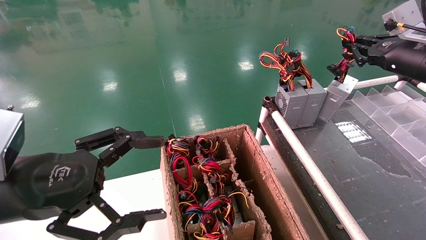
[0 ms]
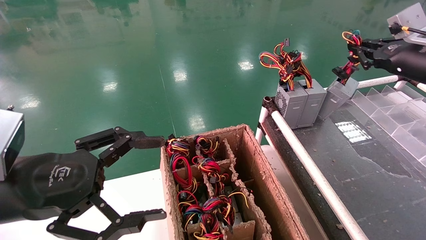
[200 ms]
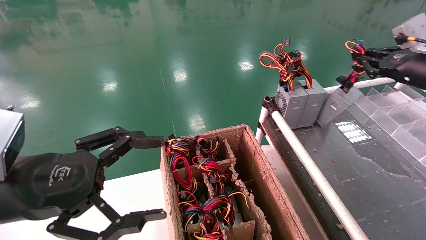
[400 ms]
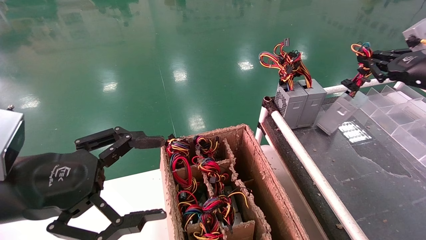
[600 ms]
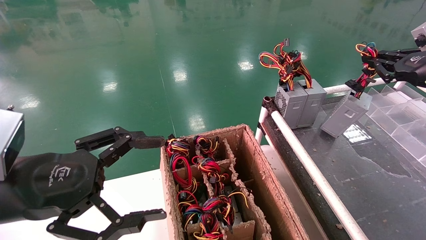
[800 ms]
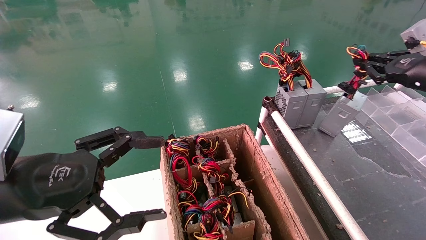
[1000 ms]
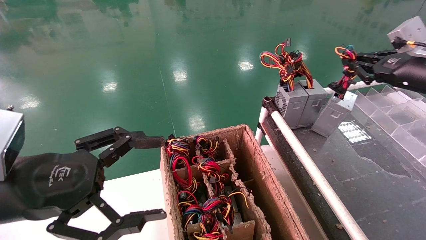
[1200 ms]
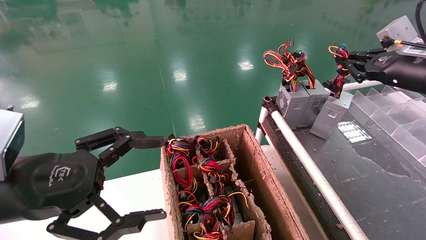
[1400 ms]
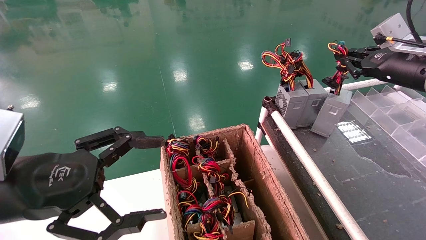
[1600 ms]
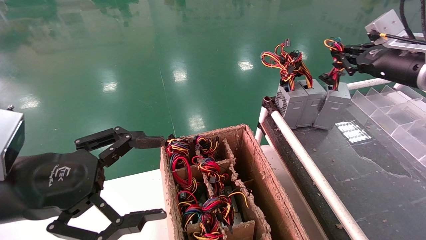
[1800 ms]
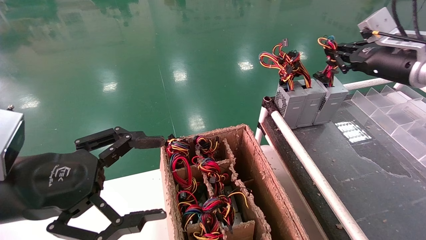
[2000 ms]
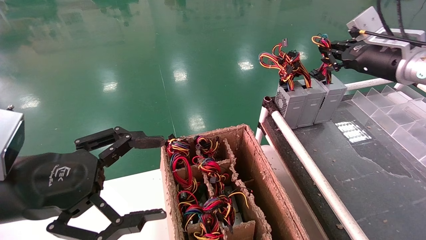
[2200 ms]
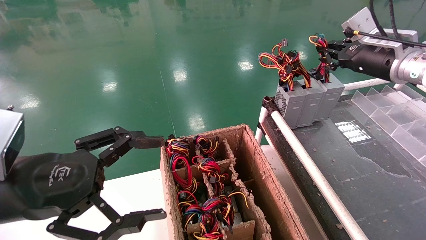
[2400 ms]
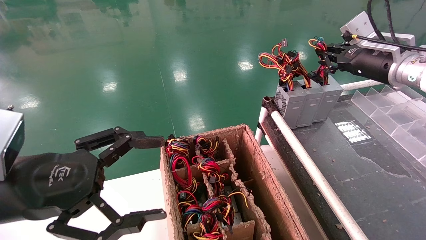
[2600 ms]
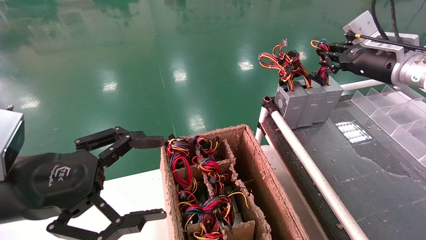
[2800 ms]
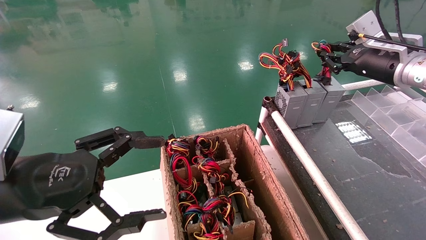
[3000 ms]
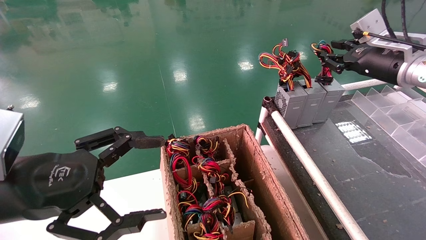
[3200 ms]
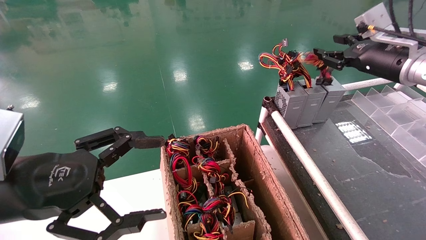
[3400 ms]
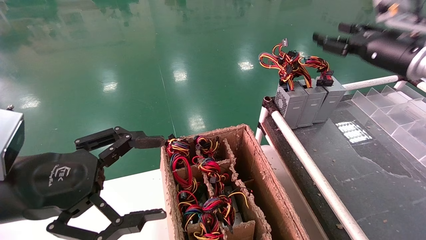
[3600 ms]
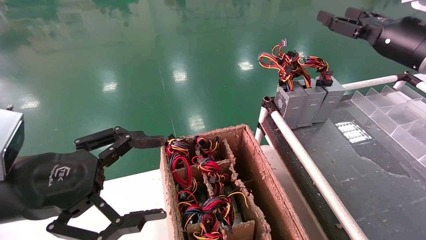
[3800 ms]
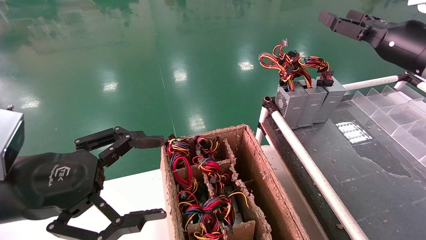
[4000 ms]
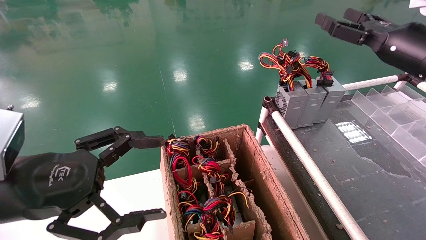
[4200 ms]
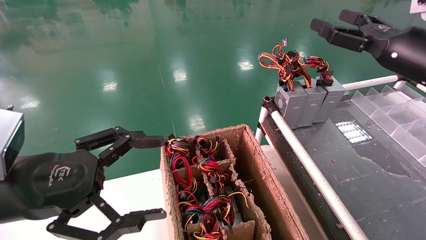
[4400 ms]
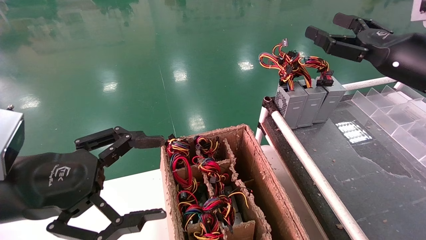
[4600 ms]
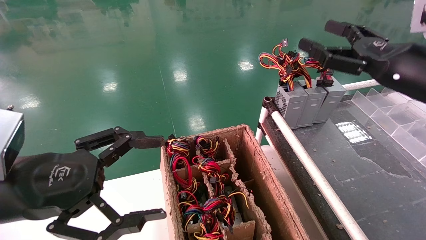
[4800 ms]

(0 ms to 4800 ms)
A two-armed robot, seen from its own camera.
Step, 0 ms - 2800 ms: Place the power supply on the operating table.
0 ms - 1600 ms: There are only small adjustments of the grippers.
1600 ms - 3200 ms: The grippers stay close to where they were, moving slightly.
3200 ms - 4800 ms: The right gripper travels backward by some 10 cm, and opens.
